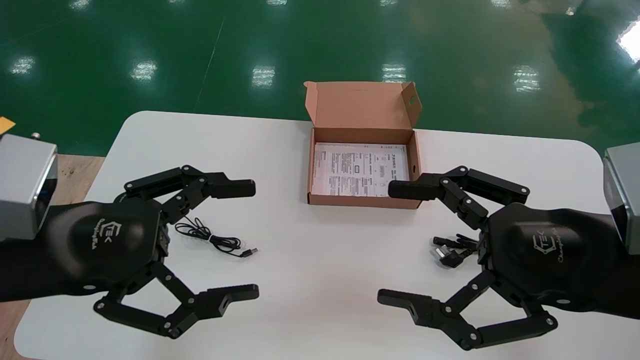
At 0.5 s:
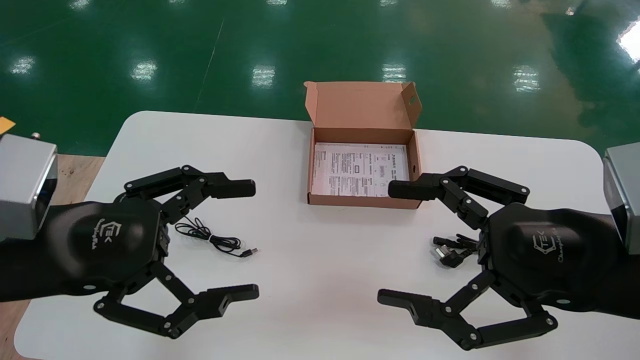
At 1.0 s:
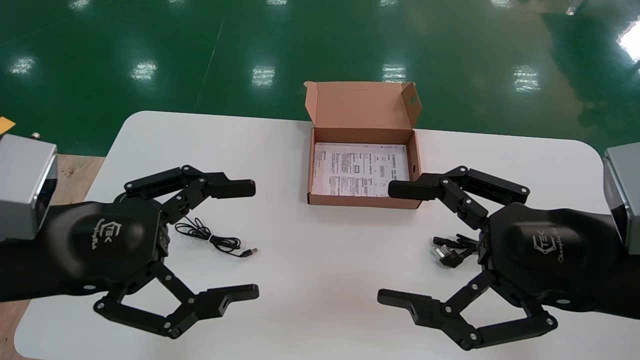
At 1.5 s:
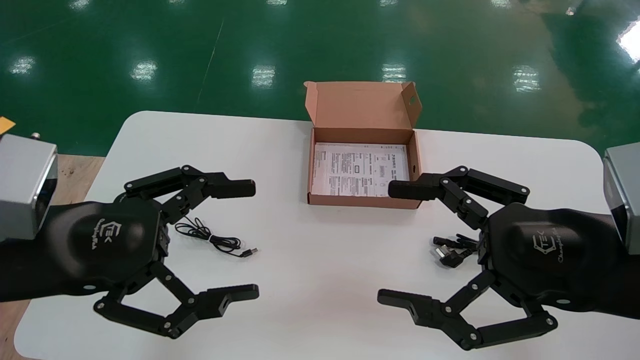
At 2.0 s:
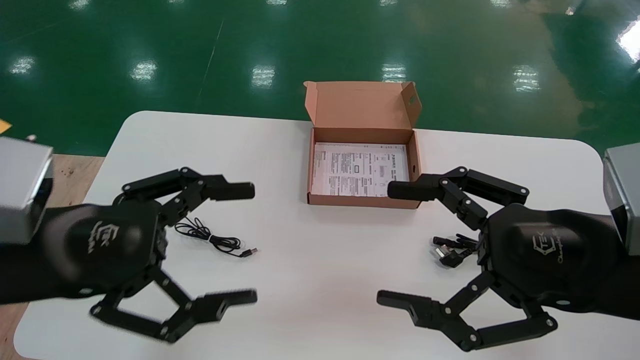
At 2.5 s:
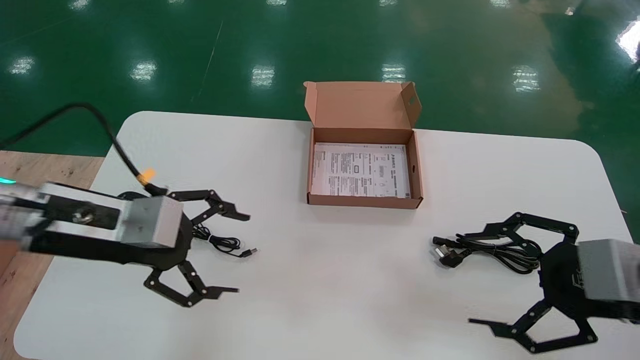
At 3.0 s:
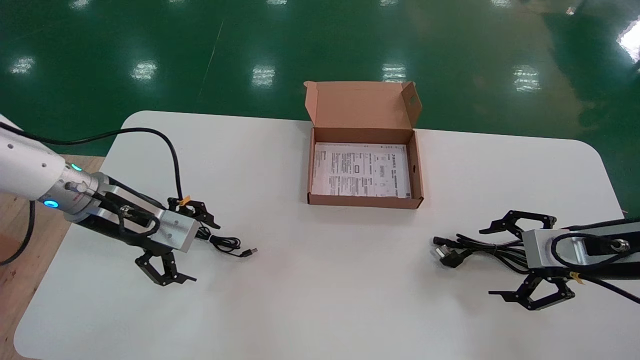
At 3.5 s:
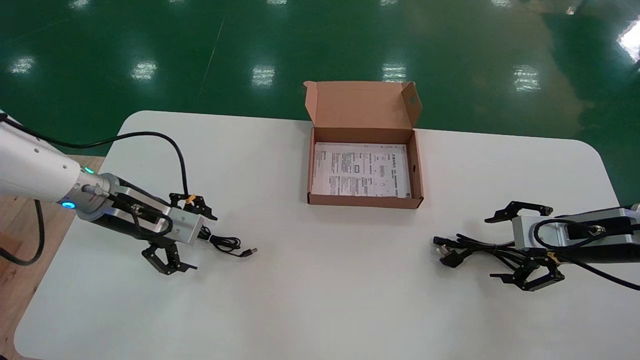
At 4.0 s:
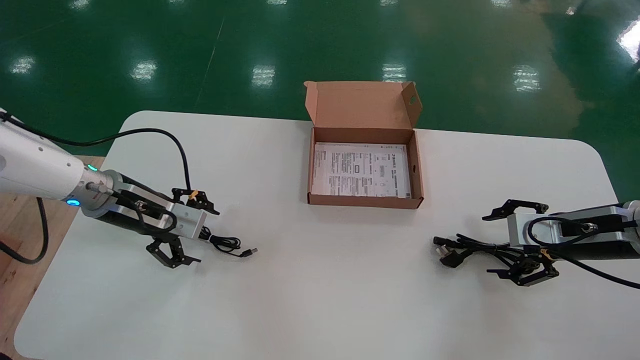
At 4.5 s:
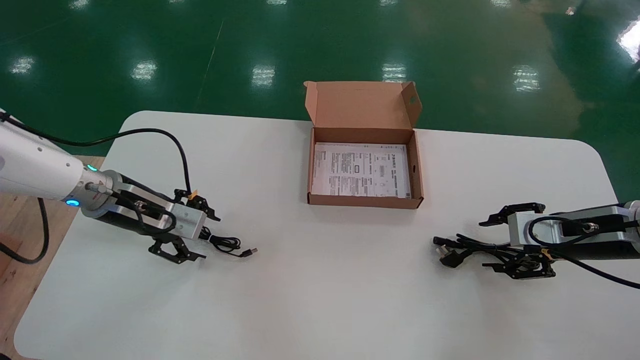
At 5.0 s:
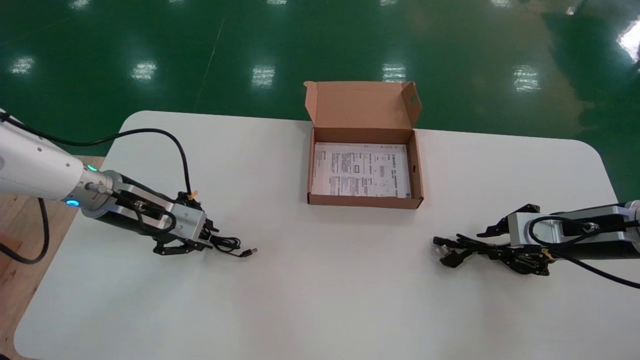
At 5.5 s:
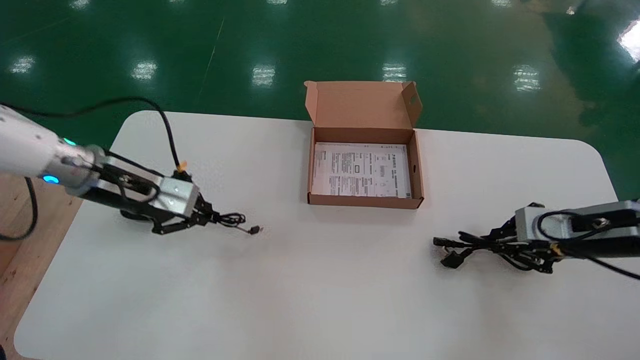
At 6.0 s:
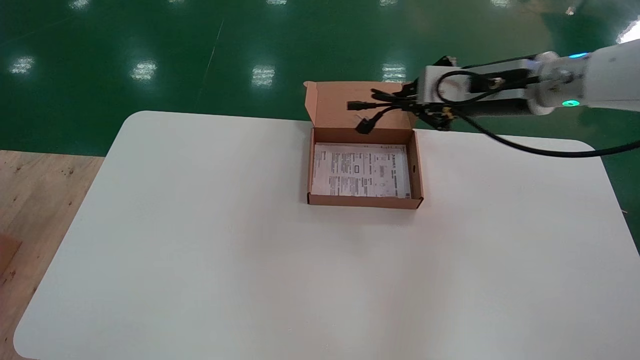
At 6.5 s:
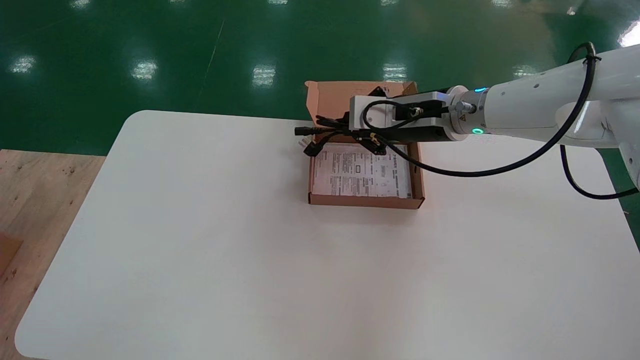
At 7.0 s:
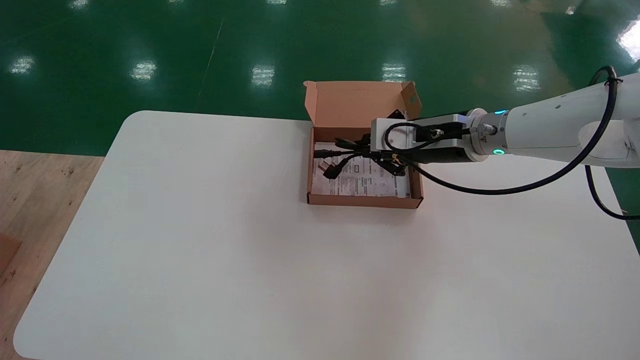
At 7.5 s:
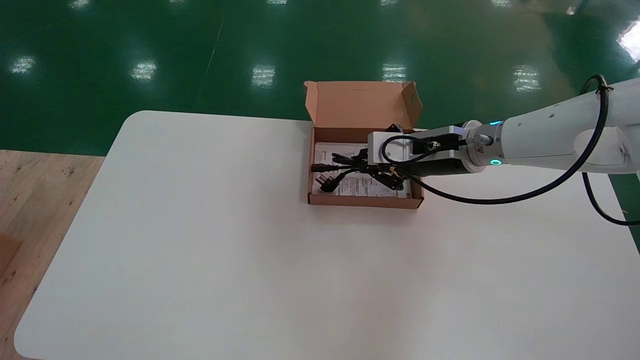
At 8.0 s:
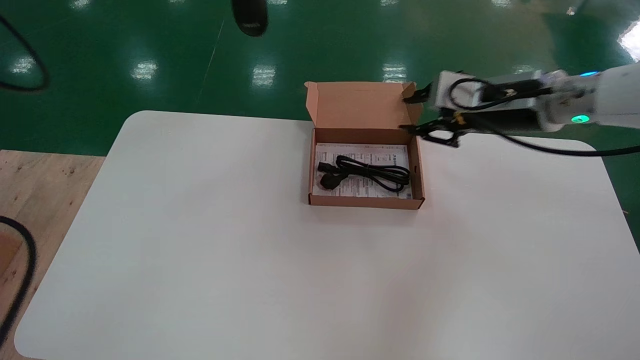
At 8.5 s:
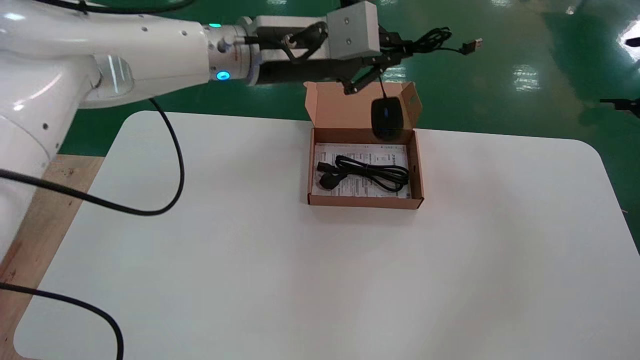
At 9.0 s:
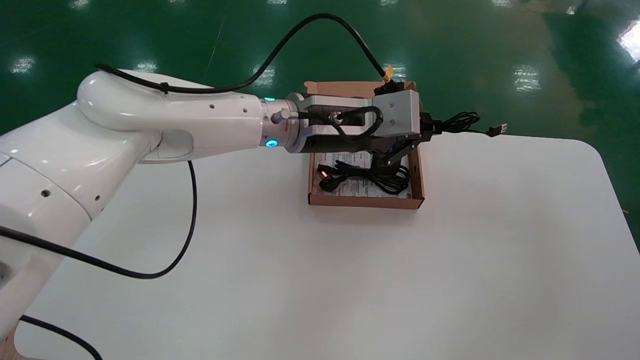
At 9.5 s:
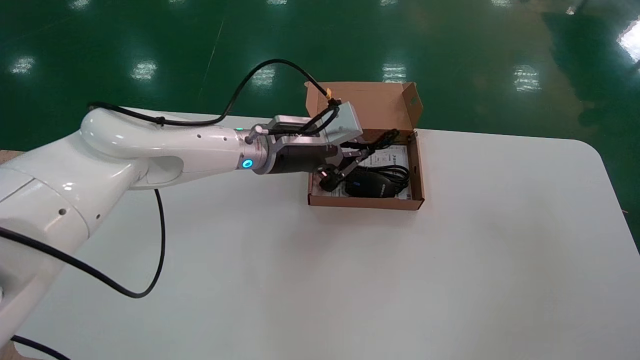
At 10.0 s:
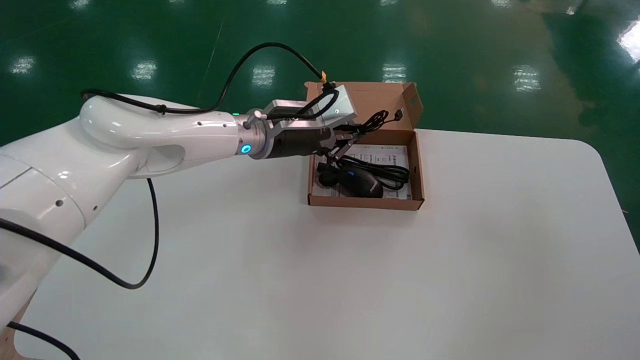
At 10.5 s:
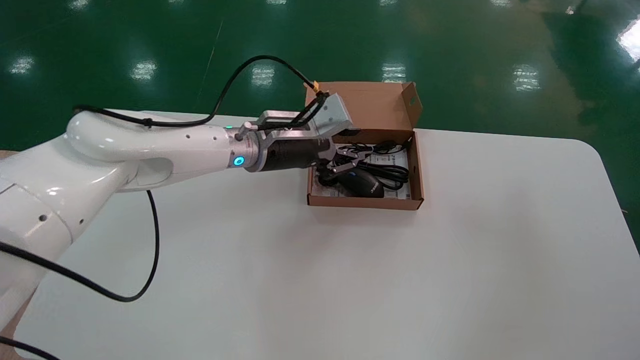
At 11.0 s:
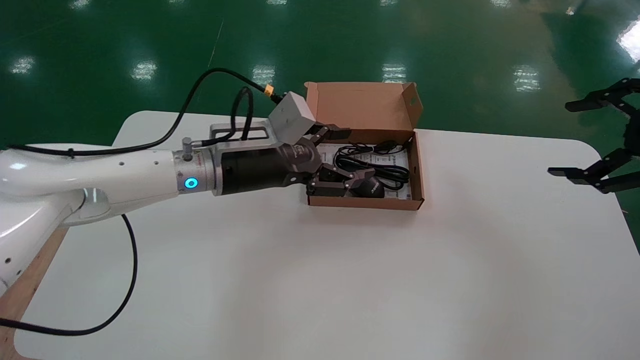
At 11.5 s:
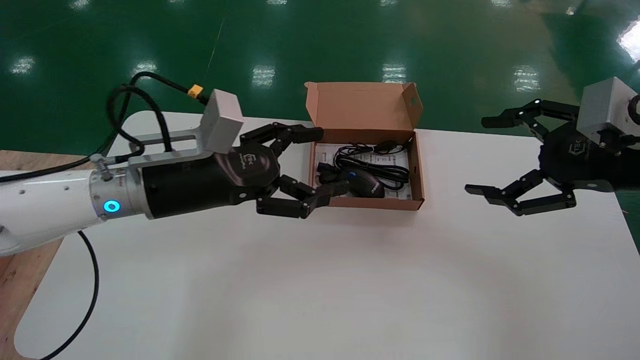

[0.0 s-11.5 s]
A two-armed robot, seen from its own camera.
Step, 2.5 to 5.0 s: Simultaneously pick up the mouse and power cord from the accessory packaging area.
Step, 5.5 to 10.5 s: Place the mouse and power cord into the box.
0.0 to 2.0 s: The grippers stay close to where they were, moving slightly.
2.0 to 4.0 s: The right gripper moves forward and to the right, roughly 20 cm. Meanwhile the left gripper travels forward by about 20 cm.
4.0 to 6.0 s: The right gripper travels upward and to the left by some 20 cm, and closes up; the left gripper moves upward, approximately 35 cm, and closes up.
6.0 to 7.5 s: The right gripper heads downward and to the left, covering about 10 cm.
7.5 to 9.5 s: The right gripper travels to the right and backward by roughly 40 cm, and opens its fingers, while the left gripper moves downward, to the right and forward, approximately 40 cm.
9.5 to 11.5 s: The left gripper shifts approximately 15 cm backward and to the left, and opens its fingers; the right gripper travels to the left by some 20 cm.

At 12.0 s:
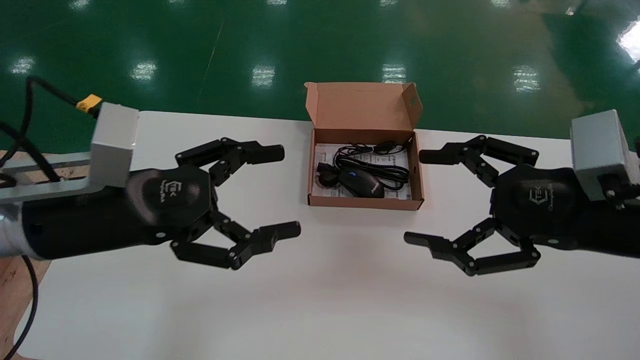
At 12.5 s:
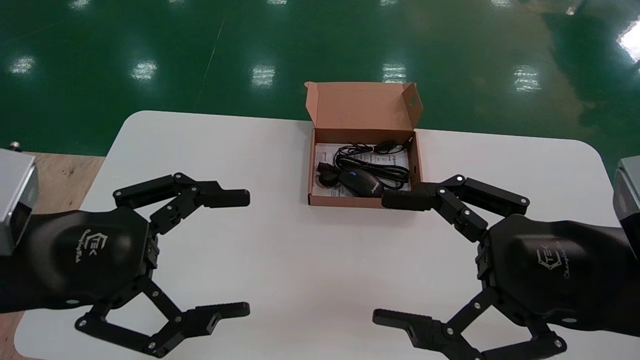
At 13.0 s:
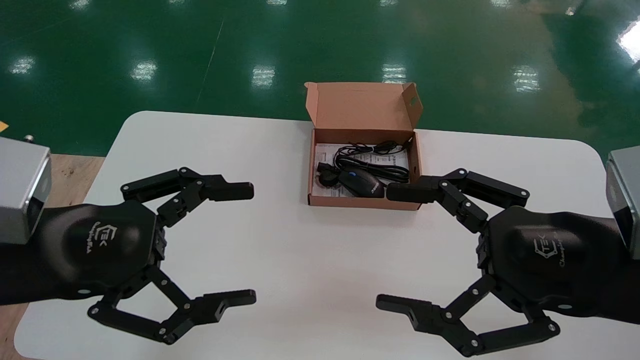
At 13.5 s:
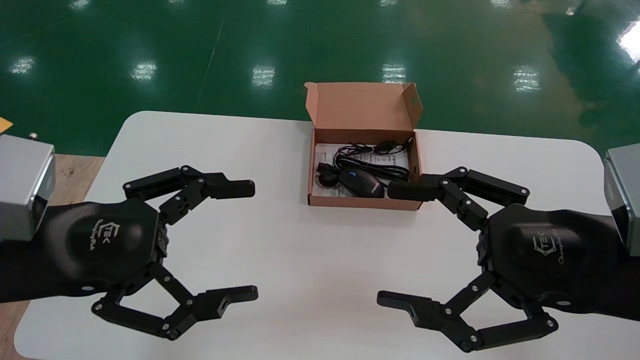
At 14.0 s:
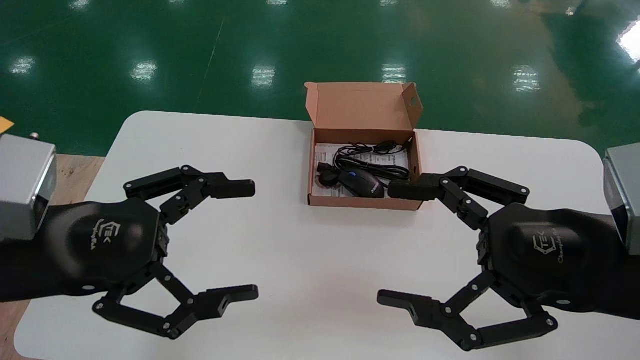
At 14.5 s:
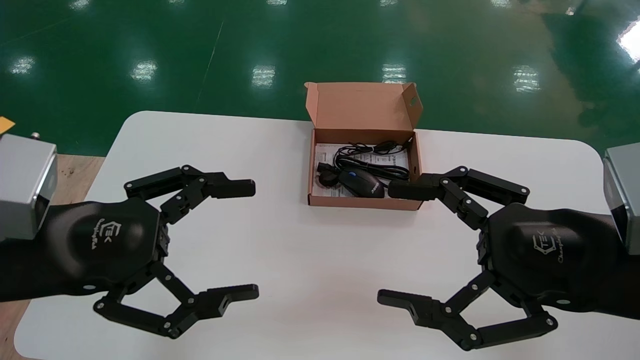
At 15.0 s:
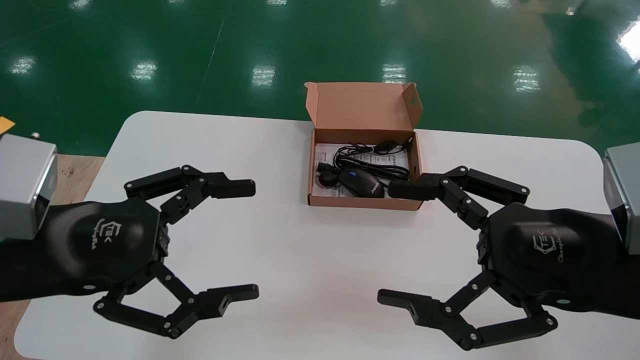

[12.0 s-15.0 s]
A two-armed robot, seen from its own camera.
12.0 to 13.5 s: The left gripper is displaced backward by some 5 cm. Meanwhile the right gripper changes place by about 5 cm.
13.5 to 15.0 s: Both grippers stay about where they are.
